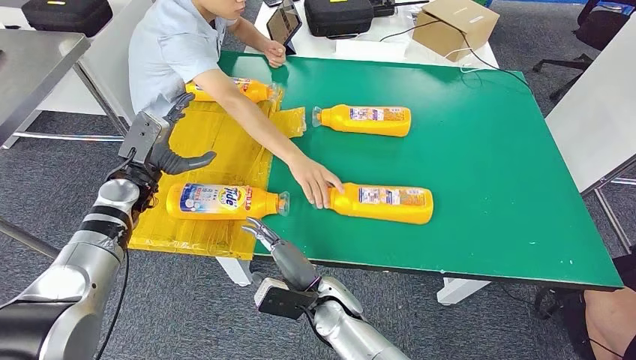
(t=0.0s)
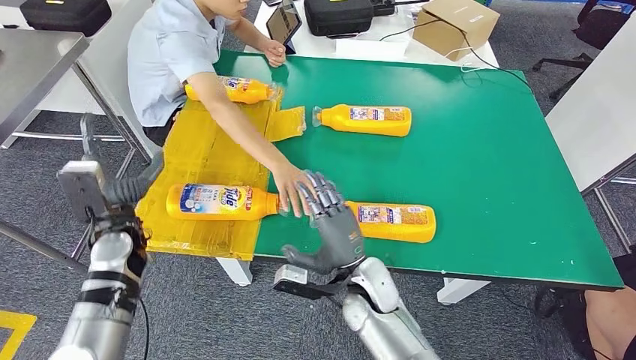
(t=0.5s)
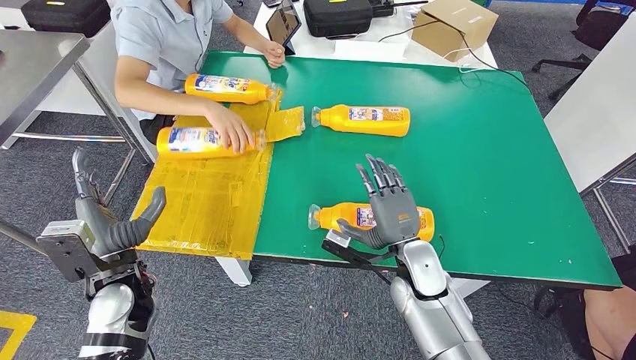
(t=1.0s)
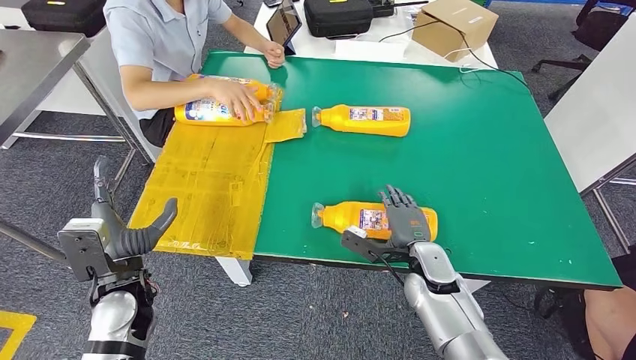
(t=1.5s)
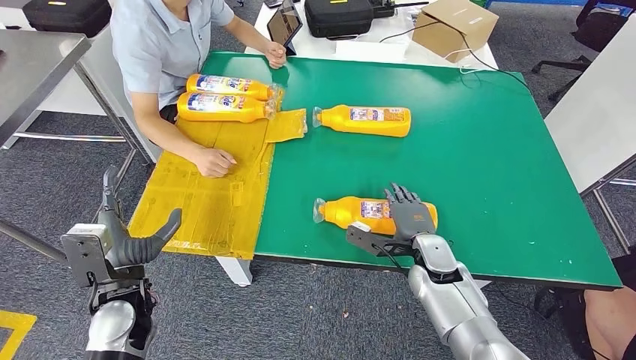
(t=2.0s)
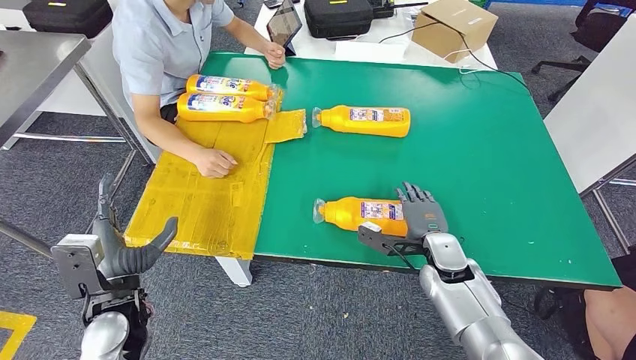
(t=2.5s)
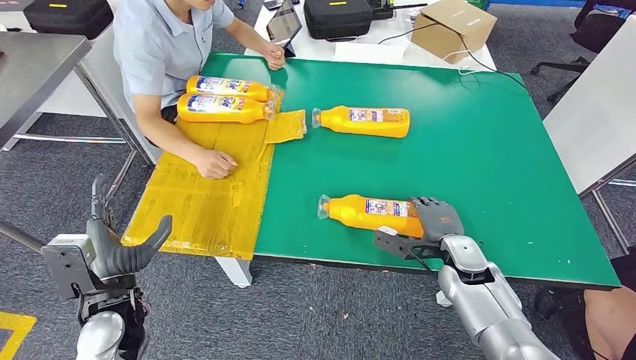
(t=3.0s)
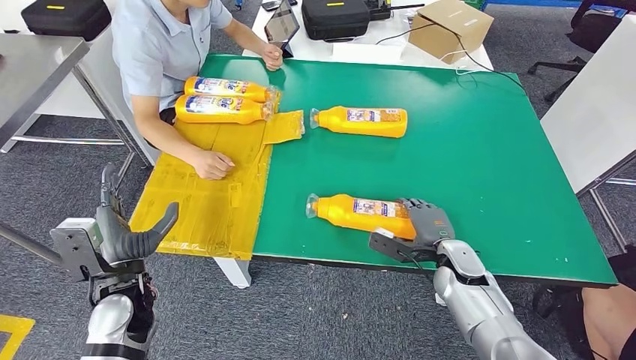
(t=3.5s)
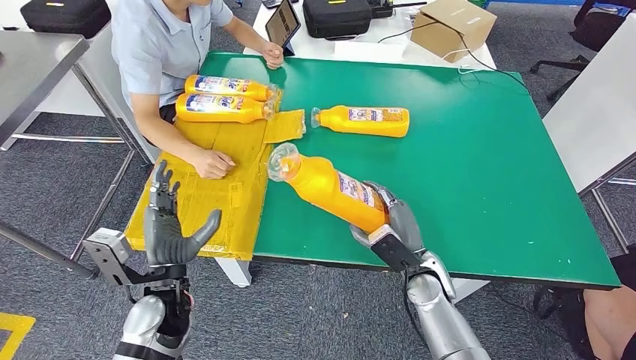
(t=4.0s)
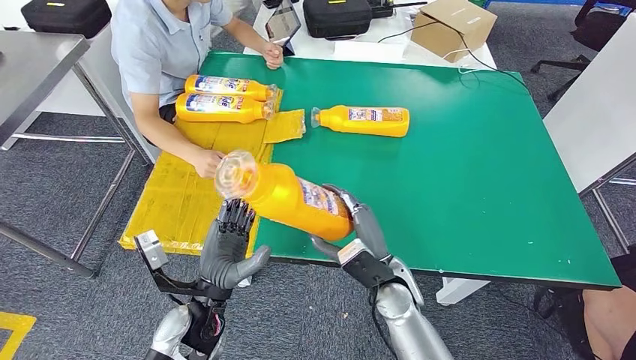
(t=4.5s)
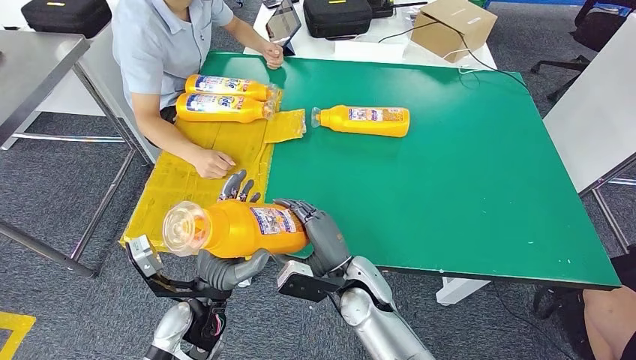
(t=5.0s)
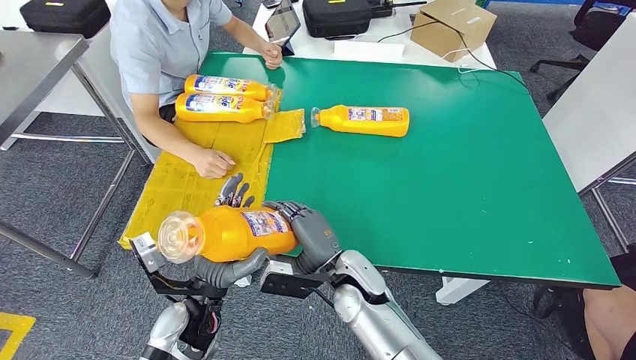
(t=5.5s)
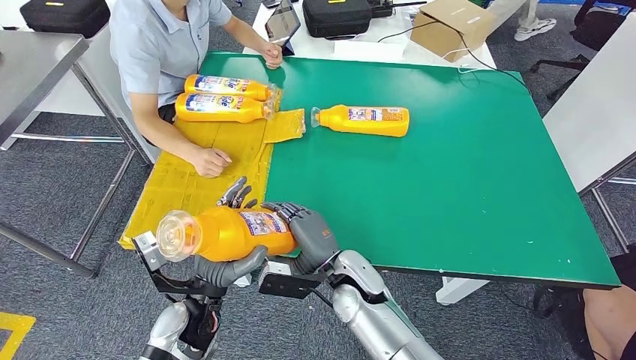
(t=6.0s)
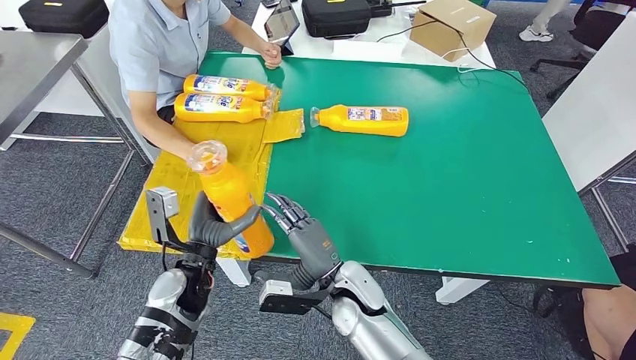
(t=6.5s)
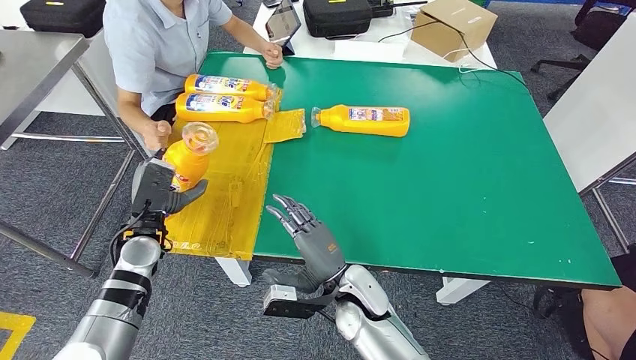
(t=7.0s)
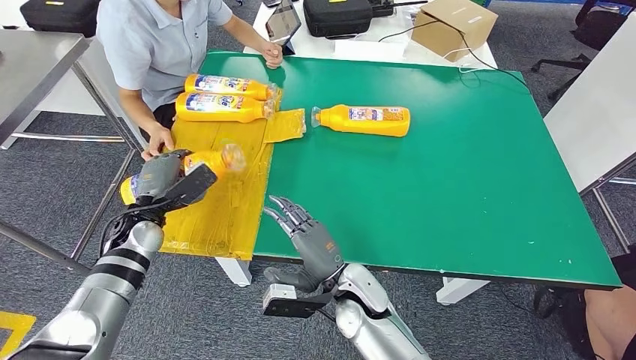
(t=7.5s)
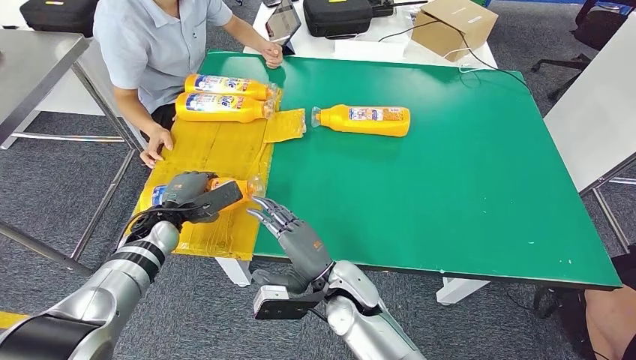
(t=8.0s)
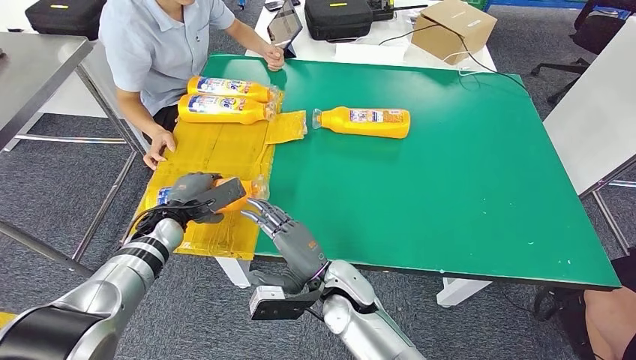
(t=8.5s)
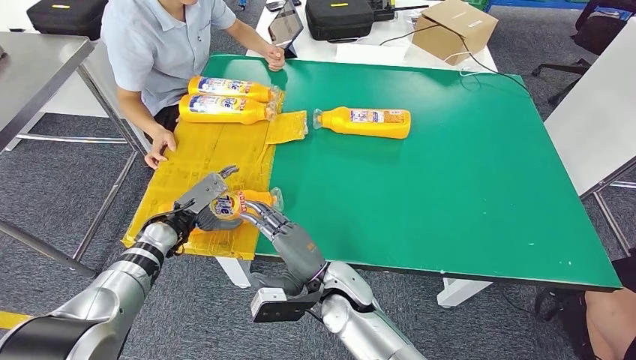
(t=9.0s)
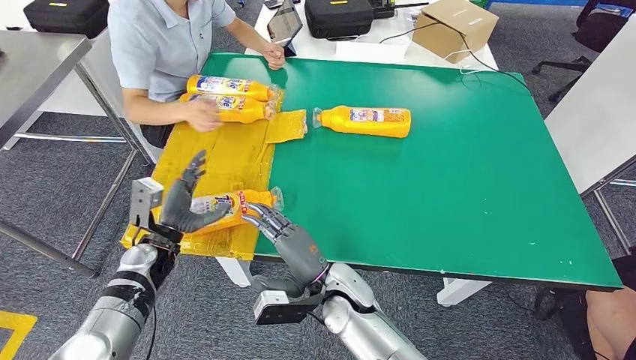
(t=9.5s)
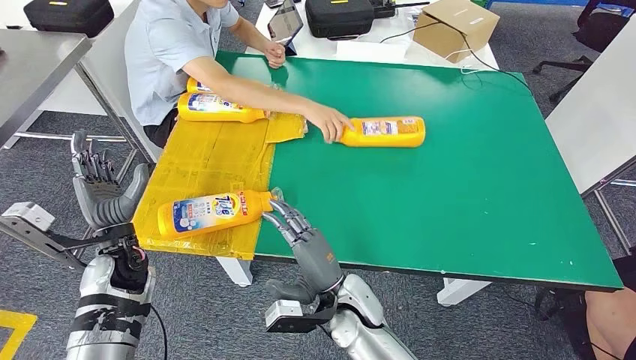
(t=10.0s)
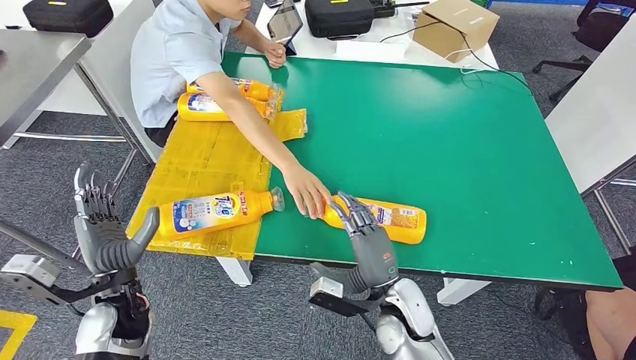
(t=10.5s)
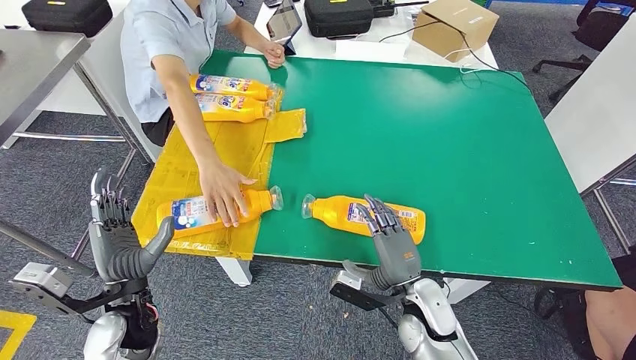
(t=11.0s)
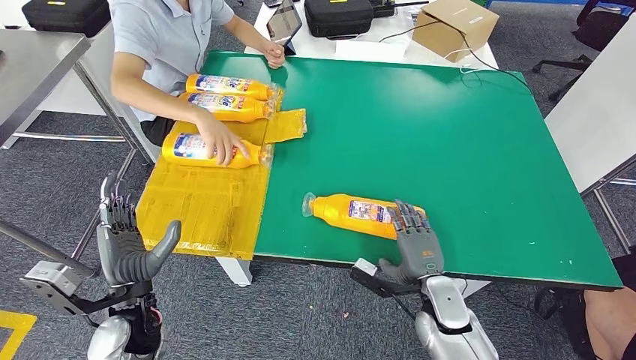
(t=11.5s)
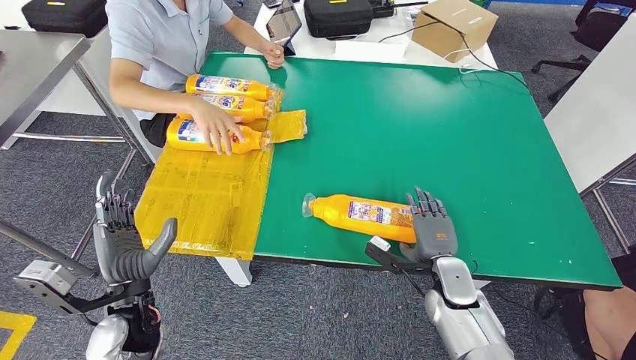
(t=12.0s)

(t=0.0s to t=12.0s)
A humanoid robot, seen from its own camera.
Step, t=0.0s - t=4.0s: Pick up the fast-moving consumer goods bottle from the table.
Step, t=4.5s - t=9.5s: Flip the fast-moving consumer goods bottle to the front side.
t=2.0s - t=4.0s: The left hand shifts roughly 5 cm to the right.
t=4.0s - t=6.0s: The left hand travels to the right by roughly 5 cm, while the right hand is displaced to the left by about 15 cm.

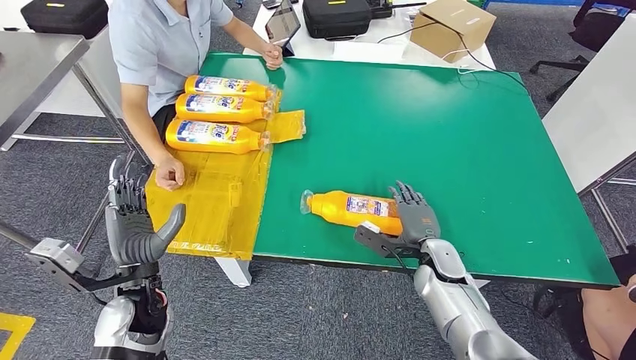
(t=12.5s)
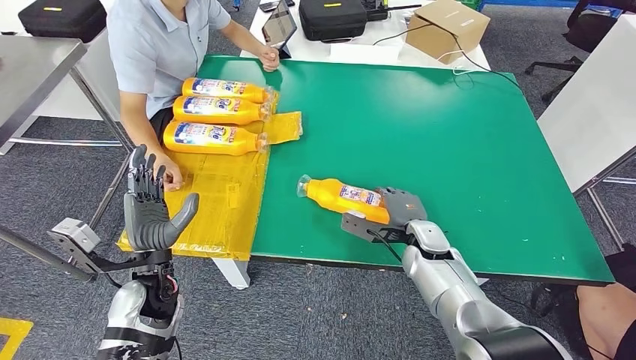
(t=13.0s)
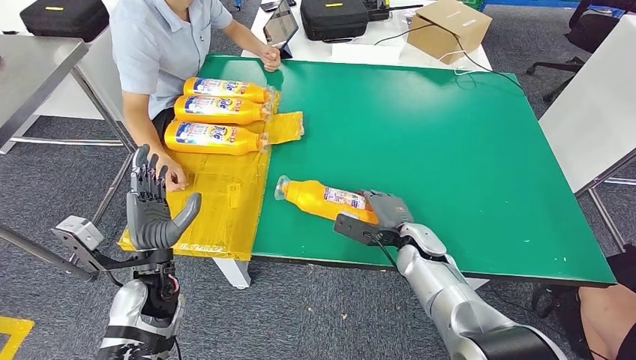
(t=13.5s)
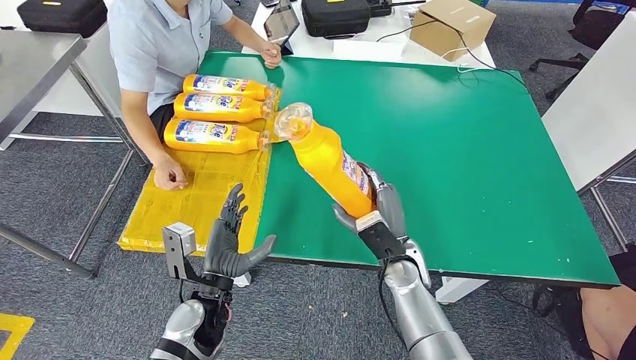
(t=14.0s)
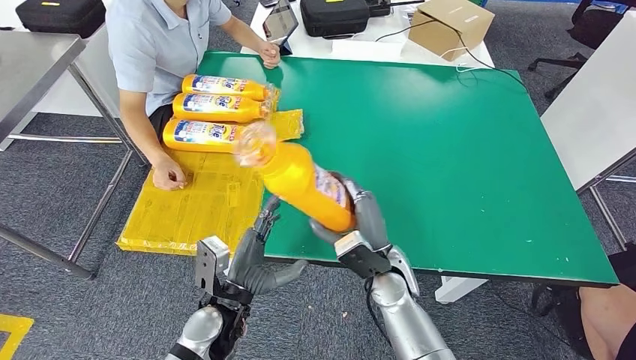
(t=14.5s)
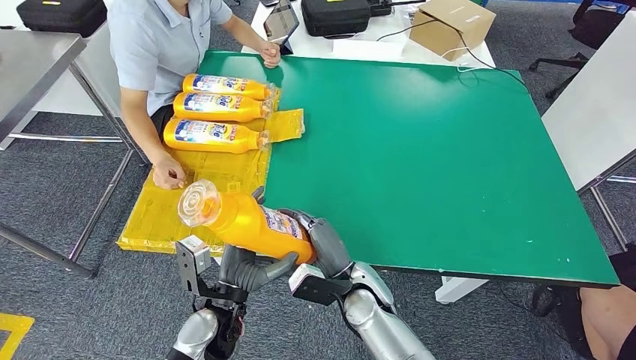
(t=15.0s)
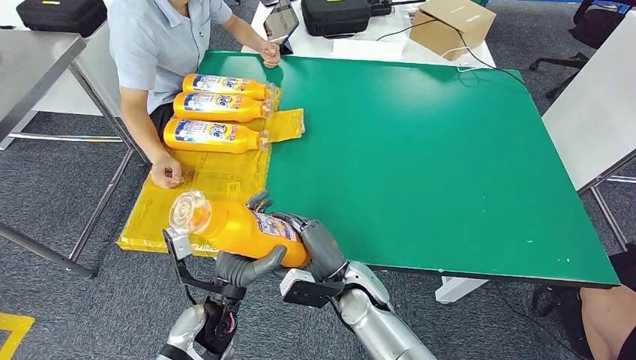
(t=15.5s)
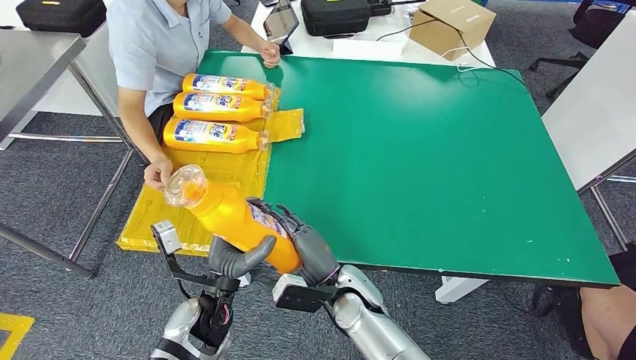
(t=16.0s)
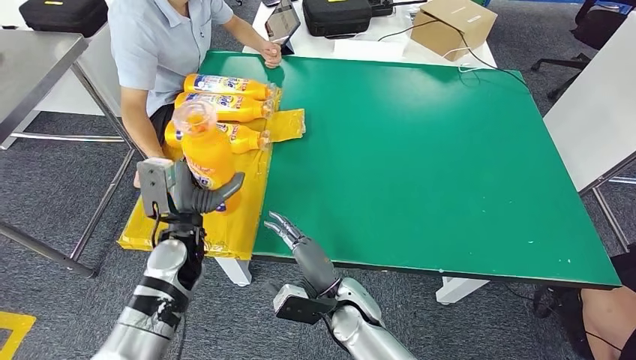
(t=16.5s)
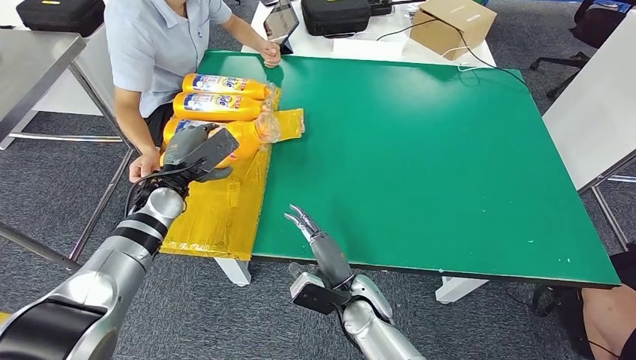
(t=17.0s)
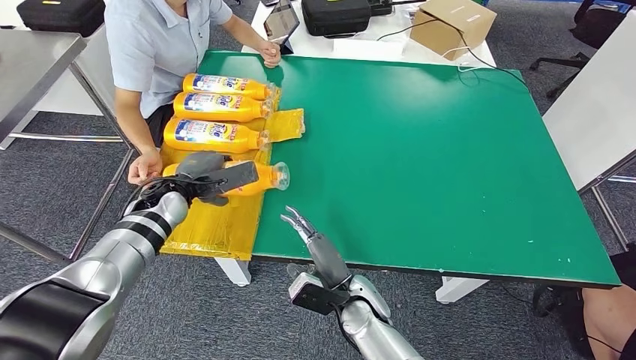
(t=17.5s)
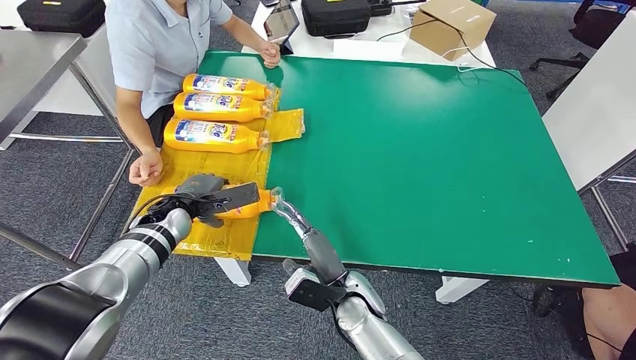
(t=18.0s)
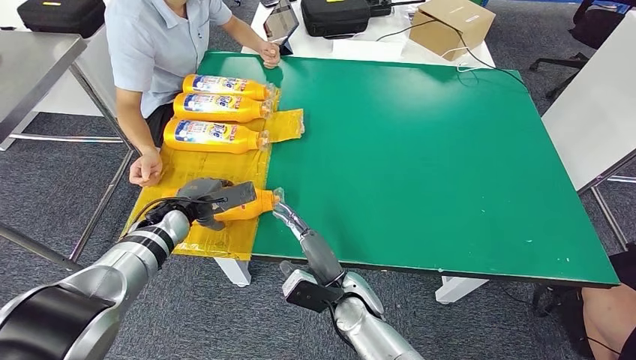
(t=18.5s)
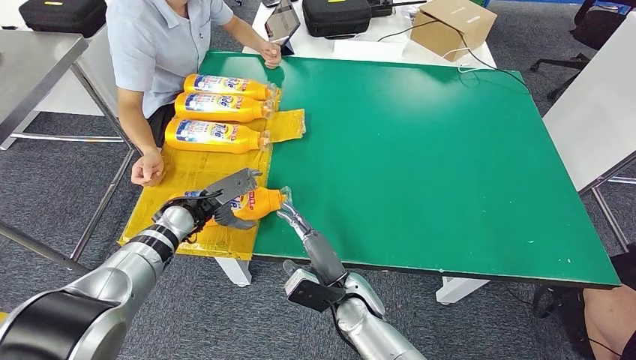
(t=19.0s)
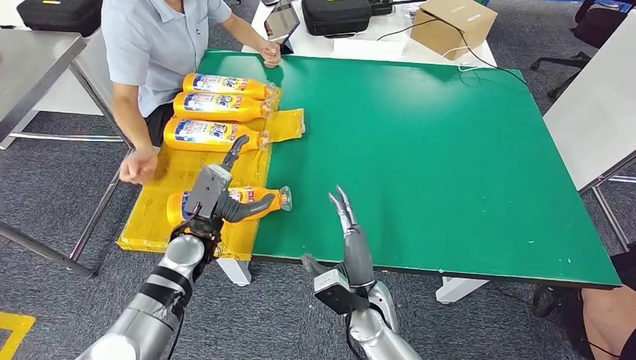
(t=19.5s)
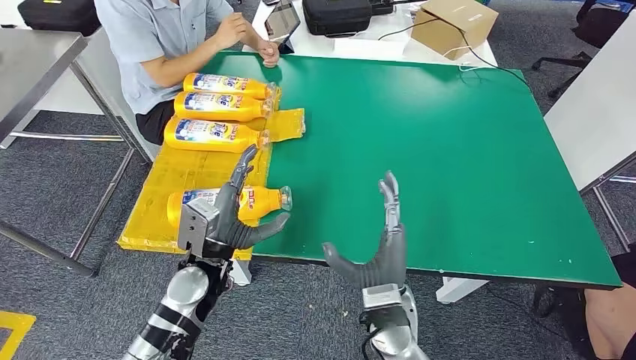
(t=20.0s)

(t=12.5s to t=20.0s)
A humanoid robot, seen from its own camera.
Step, t=12.5s - t=14.5s: Pick up the fast-moving consumer goods bottle from the table.
Step, t=15.0s - t=19.5s: Flip the fast-moving consumer goods bottle to the front side.
t=16.5s - t=18.0s: The left hand moves forward and to the left, roughly 10 cm.

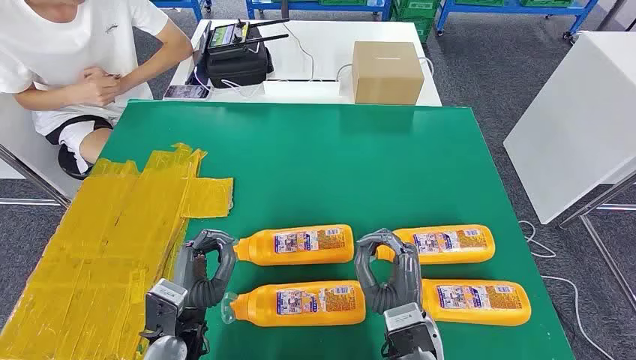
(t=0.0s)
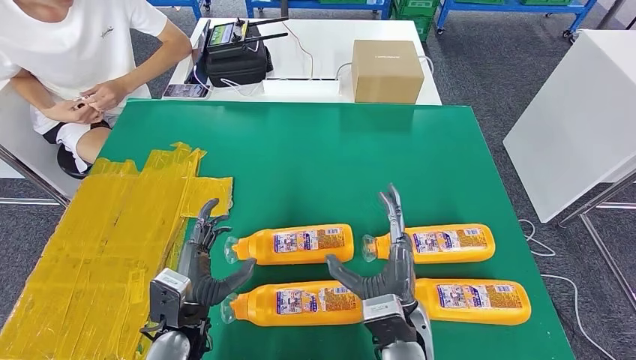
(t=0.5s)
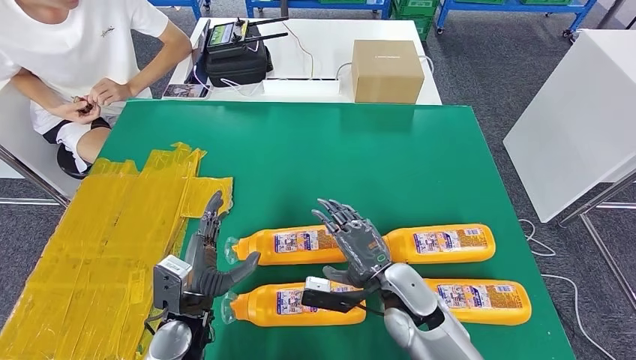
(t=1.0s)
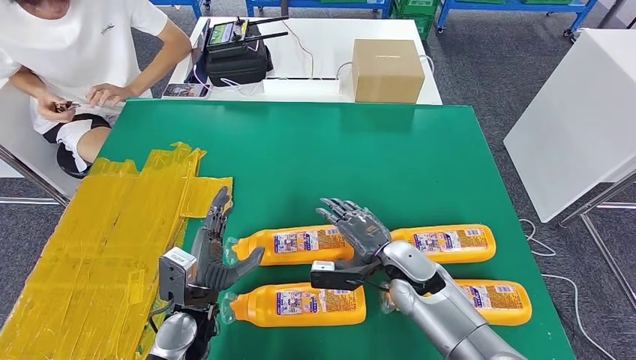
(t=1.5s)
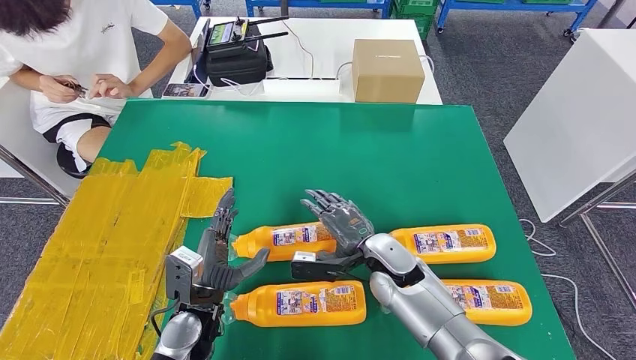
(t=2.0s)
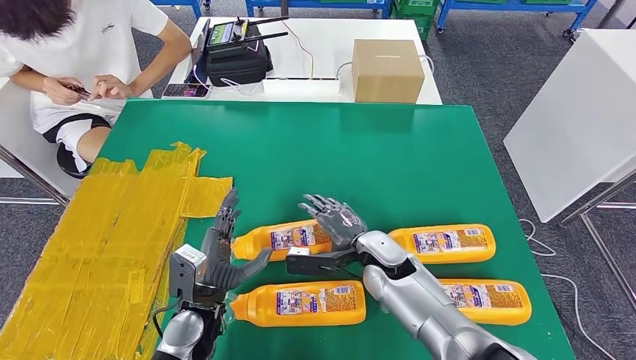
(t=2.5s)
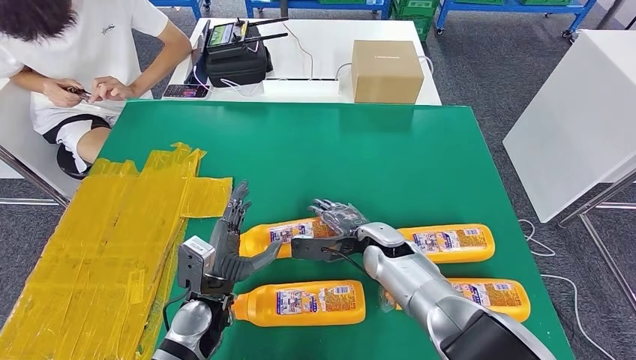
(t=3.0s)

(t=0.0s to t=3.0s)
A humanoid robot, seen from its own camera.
t=1.5s - t=3.0s: The right hand heads forward, covering about 5 cm.
